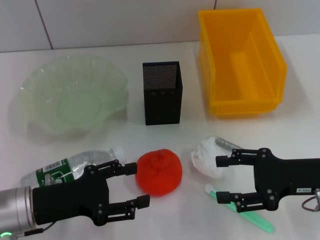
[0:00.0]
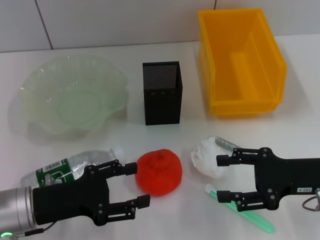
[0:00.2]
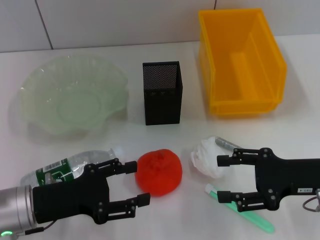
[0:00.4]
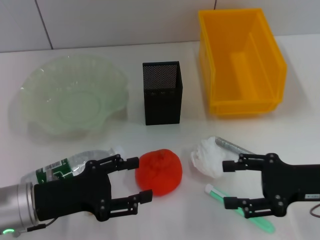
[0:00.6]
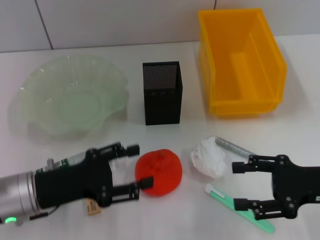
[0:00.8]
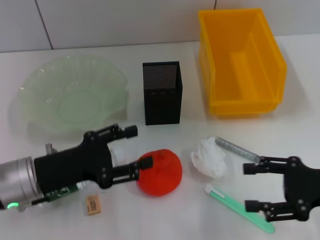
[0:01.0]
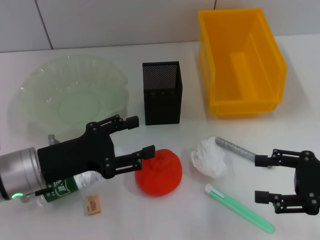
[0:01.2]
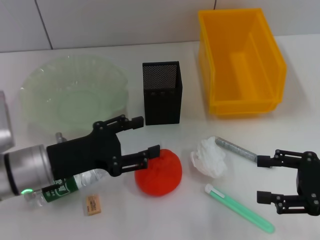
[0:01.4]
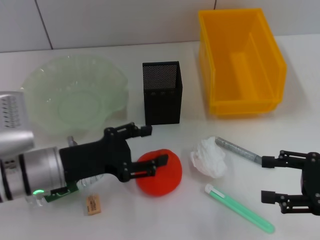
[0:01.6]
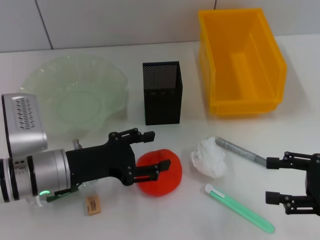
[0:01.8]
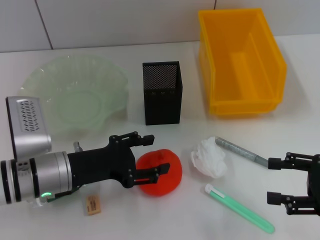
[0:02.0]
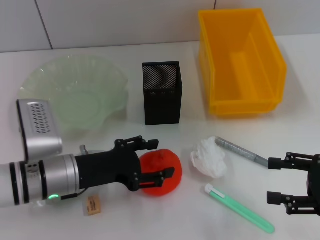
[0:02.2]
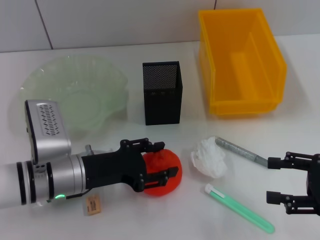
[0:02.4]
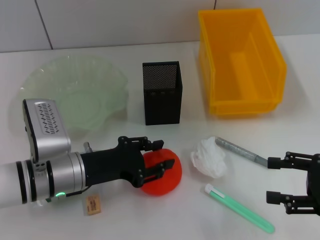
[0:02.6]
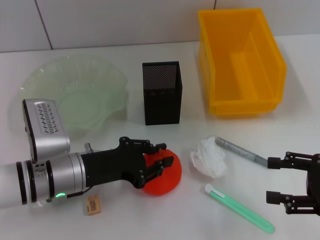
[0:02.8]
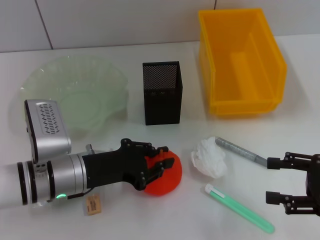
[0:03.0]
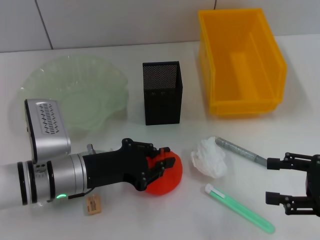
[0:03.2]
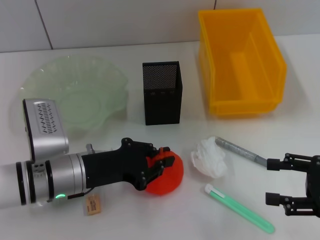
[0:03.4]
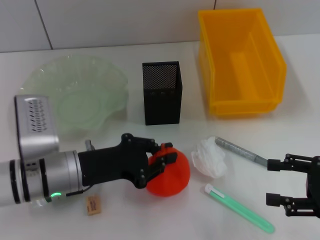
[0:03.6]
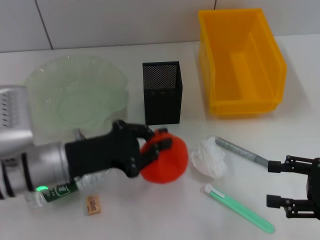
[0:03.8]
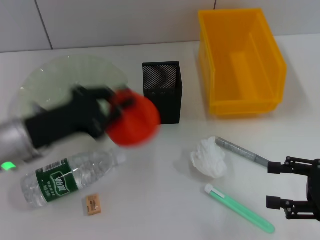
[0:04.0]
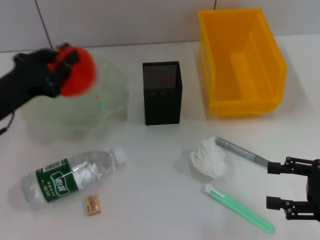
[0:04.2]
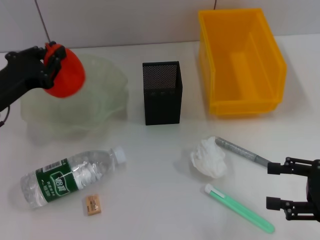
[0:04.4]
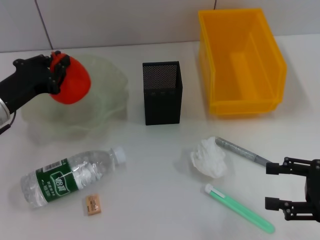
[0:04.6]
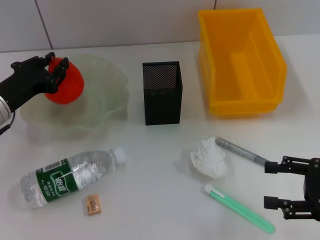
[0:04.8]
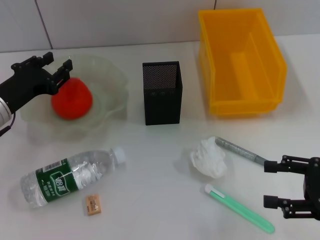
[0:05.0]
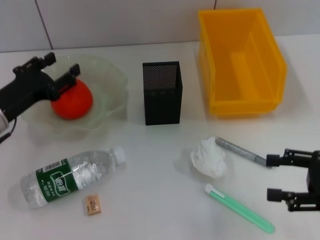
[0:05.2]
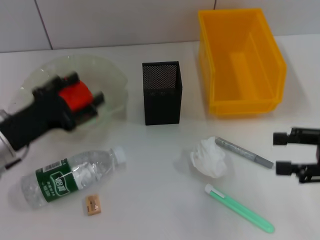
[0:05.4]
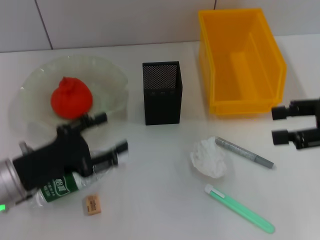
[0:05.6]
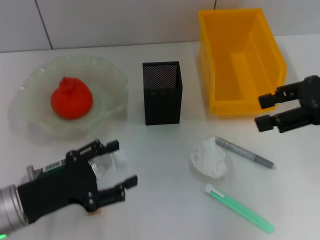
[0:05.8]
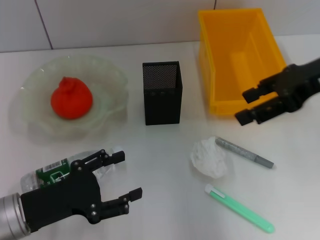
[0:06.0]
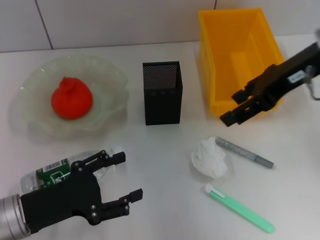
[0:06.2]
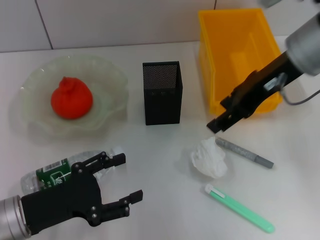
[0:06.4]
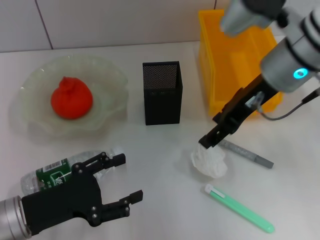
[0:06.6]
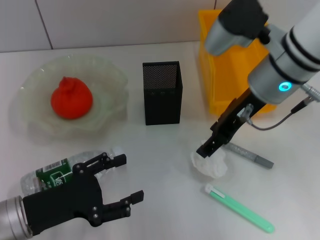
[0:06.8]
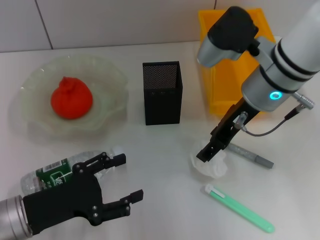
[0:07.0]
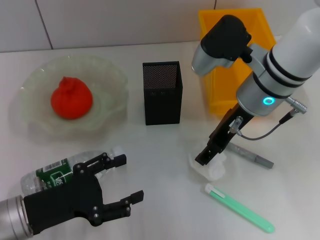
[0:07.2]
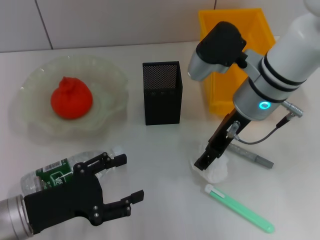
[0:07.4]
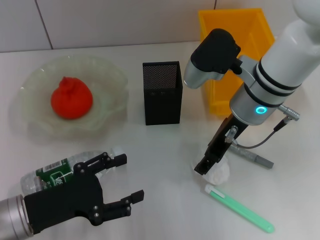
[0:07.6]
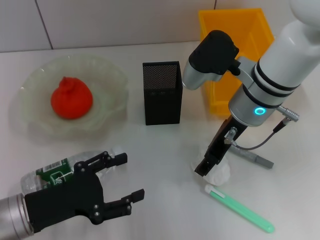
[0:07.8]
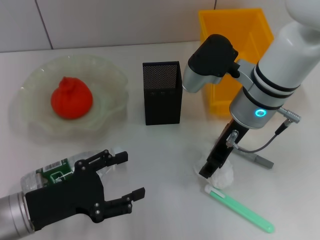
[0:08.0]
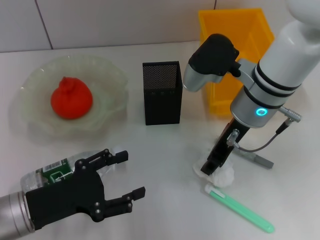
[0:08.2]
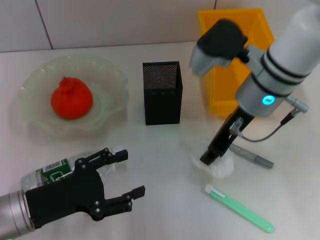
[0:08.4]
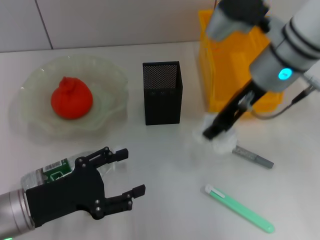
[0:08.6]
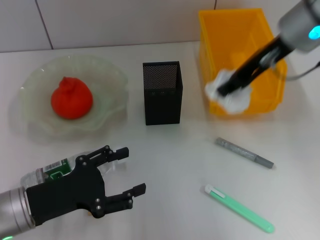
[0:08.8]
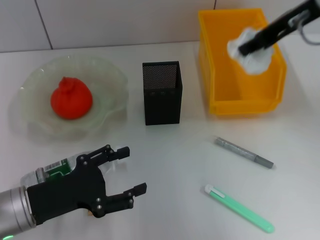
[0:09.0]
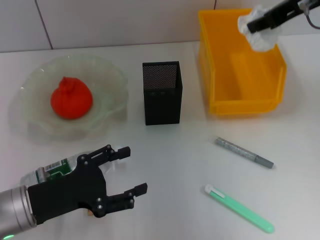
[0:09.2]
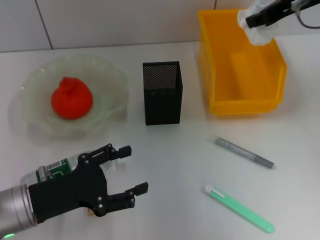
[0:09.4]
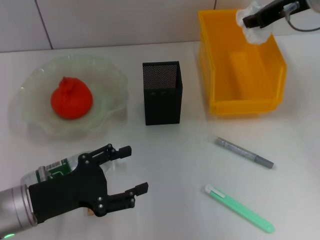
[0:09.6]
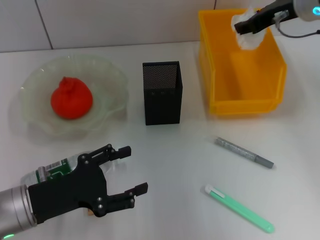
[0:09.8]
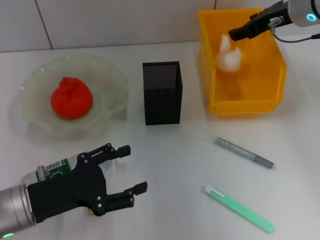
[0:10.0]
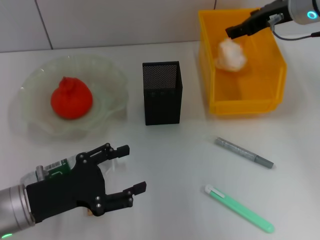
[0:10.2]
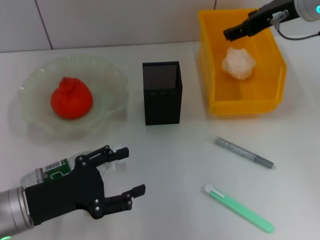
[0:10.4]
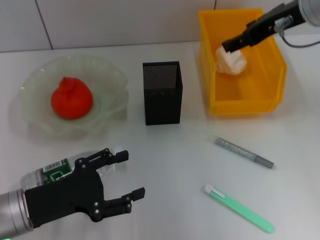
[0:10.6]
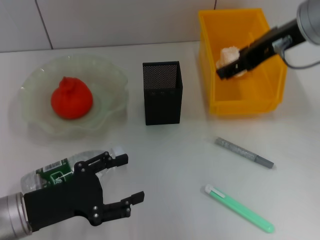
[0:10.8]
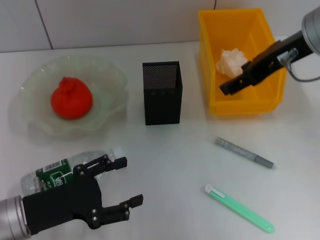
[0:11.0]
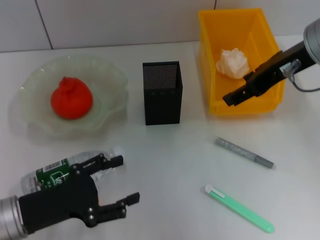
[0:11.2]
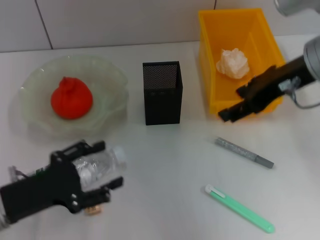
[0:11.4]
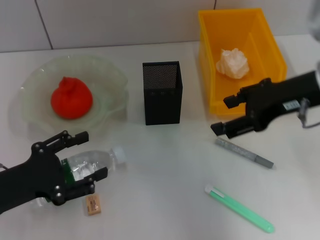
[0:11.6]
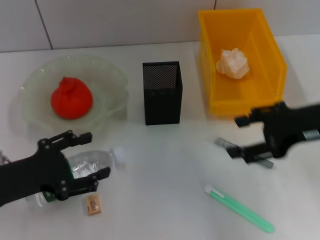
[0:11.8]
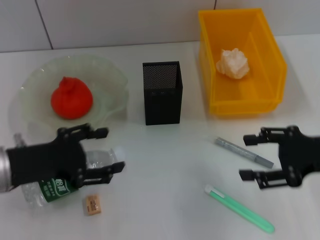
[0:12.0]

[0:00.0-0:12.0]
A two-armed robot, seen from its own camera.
Step, 0:00.0 to 0:03.0: Grab the orange with the left hand.
Step, 0:03.4 to 0:05.0: Place the orange into the fruit bowl with the left hand.
Step, 0:05.2 to 0:08.0: Grab the paper ball with the right hand.
Step, 0:08.2 to 0:10.0: Place the paper ball into the trash can with the right hand.
0:00.0 to 0:01.6: The right gripper goes roughly 5 cm to the right. The left gripper shifts by some 5 cm.
0:01.6 to 0:03.0: The left gripper closes its fingers.
0:03.0 to 0:04.4: The left gripper moves to the left and upward, roughly 10 cm.
0:04.4 to 0:06.0: The left gripper travels backward and downward by about 15 cm, and opens its fingers, while the right gripper goes approximately 25 cm upward, forward and to the left.
0:06.0 to 0:07.6: The right gripper travels to the left and downward by some 15 cm.
0:07.6 to 0:09.0: The right gripper is displaced upward and to the right by some 15 cm, and closes its fingers.
0:09.0 to 0:10.4: The right gripper opens up.
0:10.4 to 0:12.0: The right gripper goes some 20 cm backward, downward and to the right. The left gripper shifts about 5 cm upward.

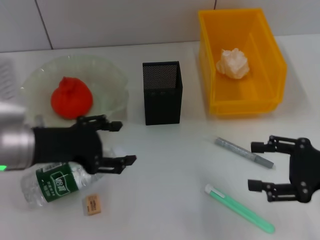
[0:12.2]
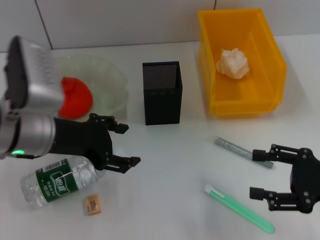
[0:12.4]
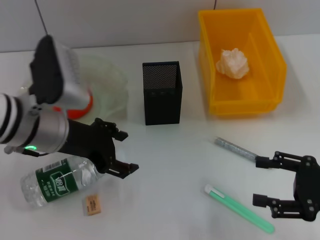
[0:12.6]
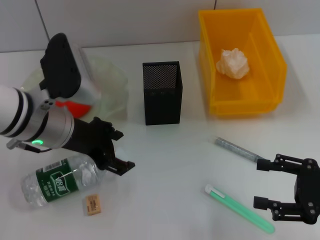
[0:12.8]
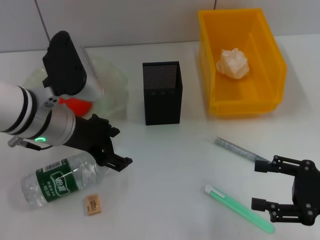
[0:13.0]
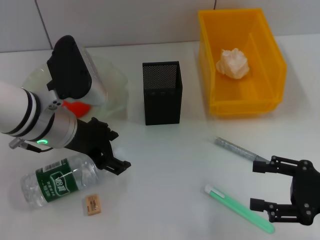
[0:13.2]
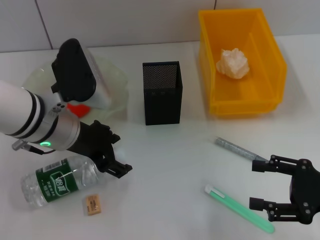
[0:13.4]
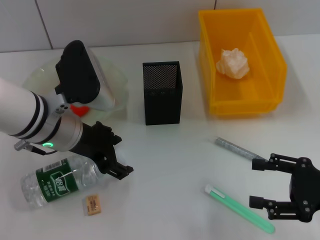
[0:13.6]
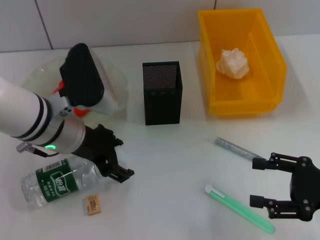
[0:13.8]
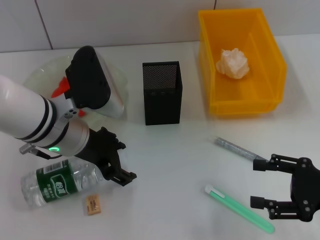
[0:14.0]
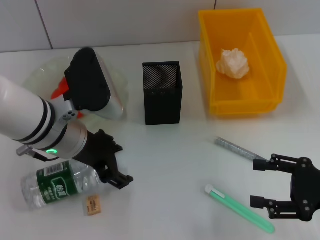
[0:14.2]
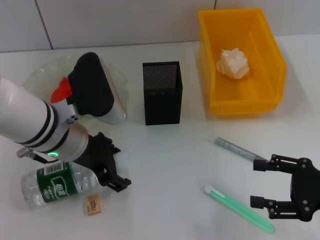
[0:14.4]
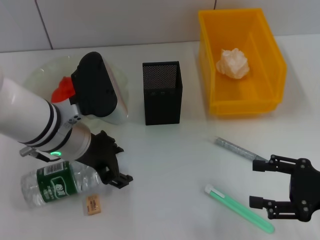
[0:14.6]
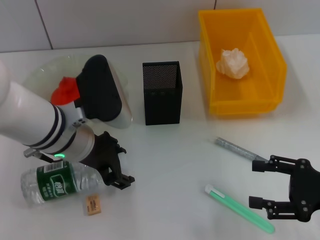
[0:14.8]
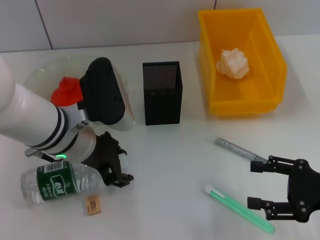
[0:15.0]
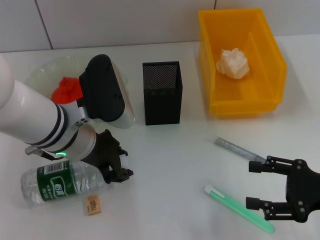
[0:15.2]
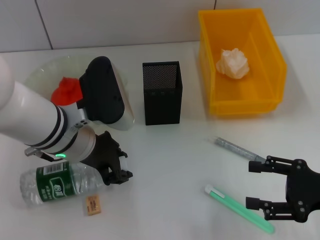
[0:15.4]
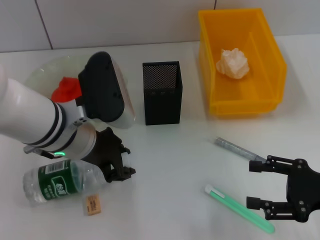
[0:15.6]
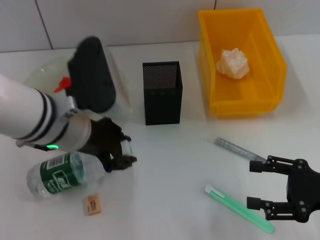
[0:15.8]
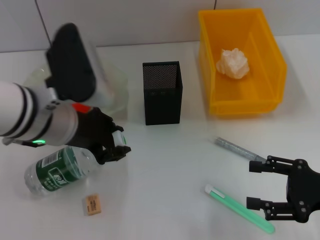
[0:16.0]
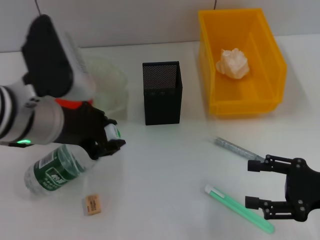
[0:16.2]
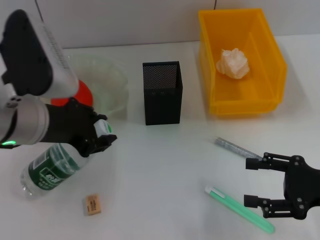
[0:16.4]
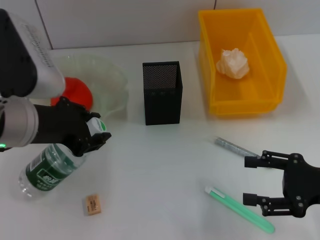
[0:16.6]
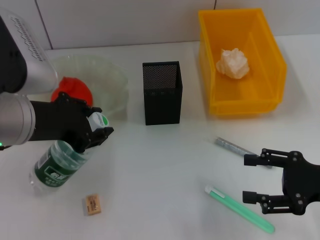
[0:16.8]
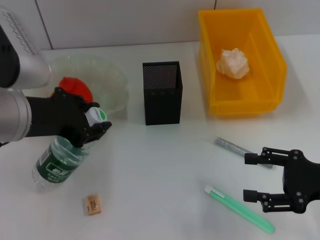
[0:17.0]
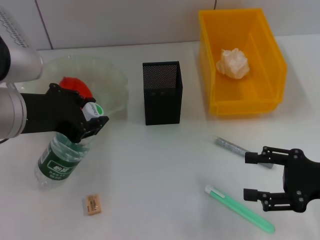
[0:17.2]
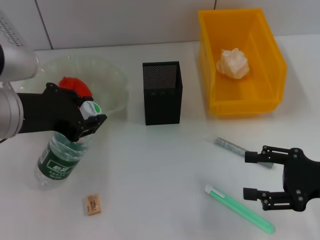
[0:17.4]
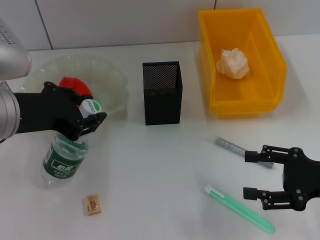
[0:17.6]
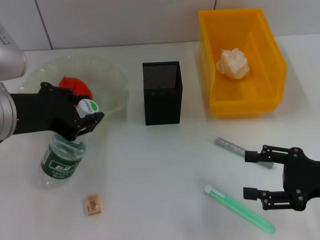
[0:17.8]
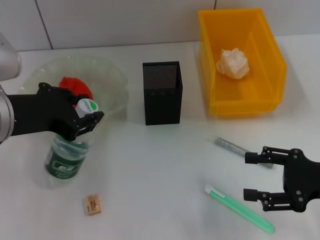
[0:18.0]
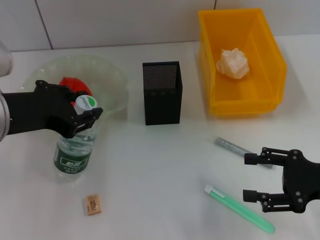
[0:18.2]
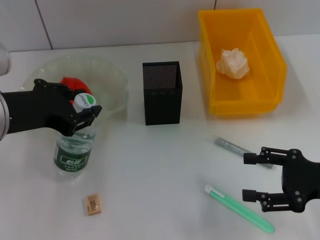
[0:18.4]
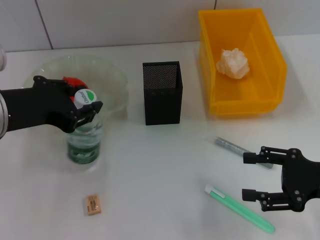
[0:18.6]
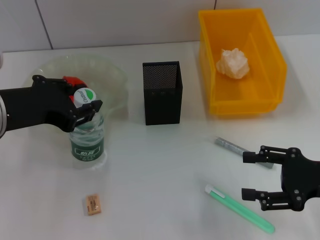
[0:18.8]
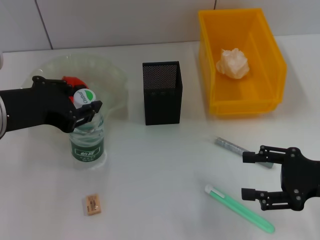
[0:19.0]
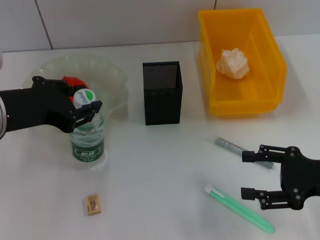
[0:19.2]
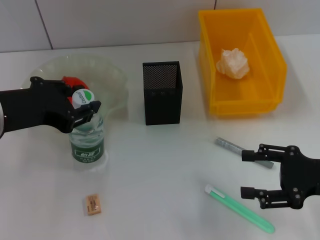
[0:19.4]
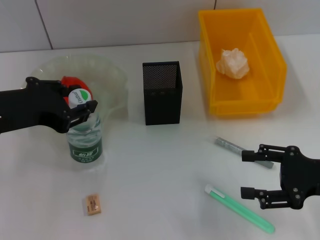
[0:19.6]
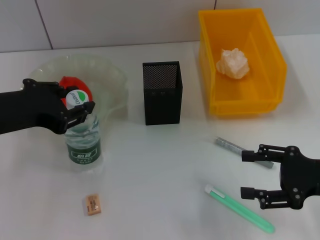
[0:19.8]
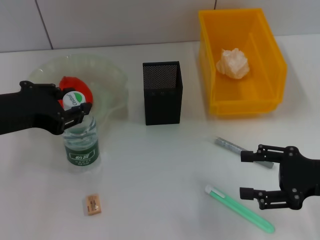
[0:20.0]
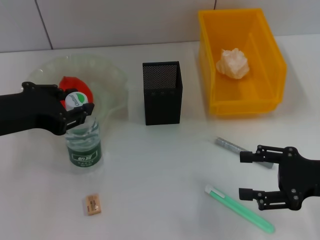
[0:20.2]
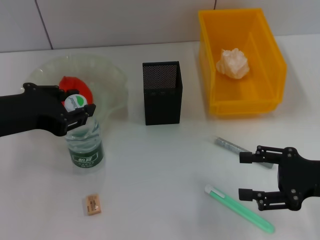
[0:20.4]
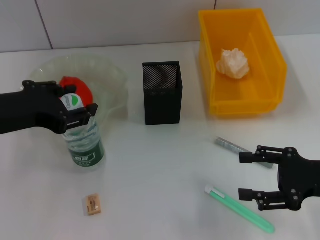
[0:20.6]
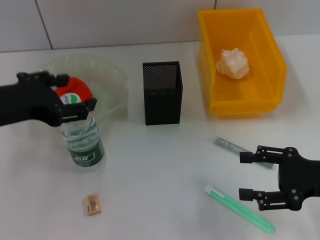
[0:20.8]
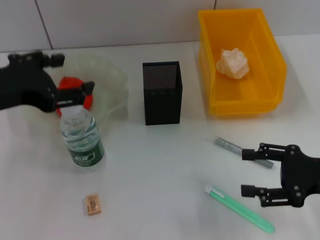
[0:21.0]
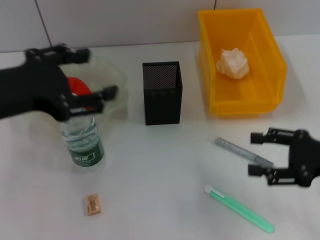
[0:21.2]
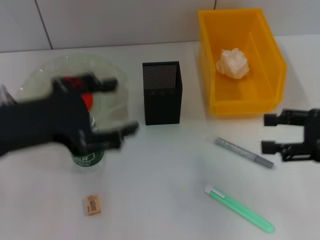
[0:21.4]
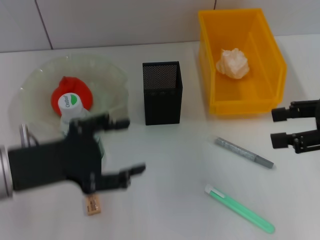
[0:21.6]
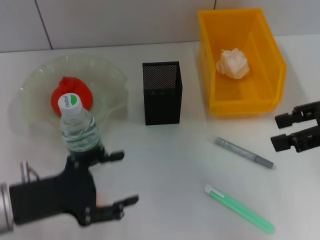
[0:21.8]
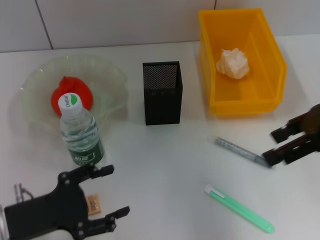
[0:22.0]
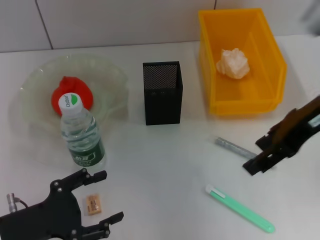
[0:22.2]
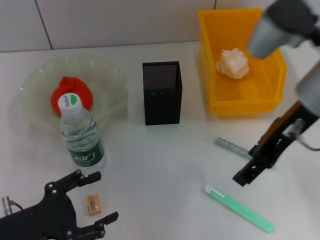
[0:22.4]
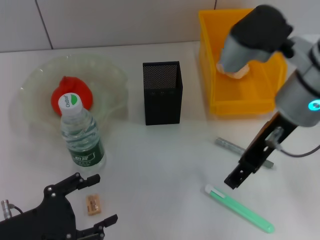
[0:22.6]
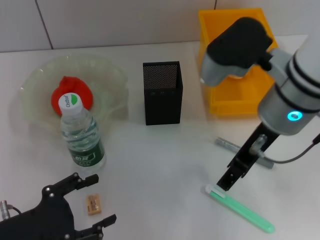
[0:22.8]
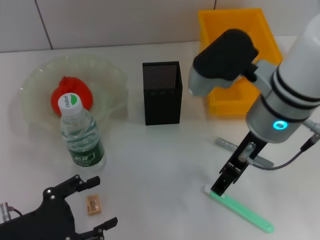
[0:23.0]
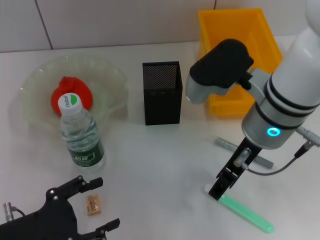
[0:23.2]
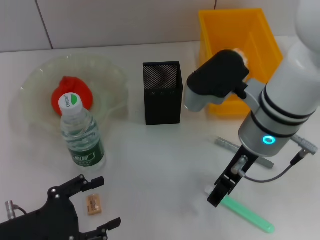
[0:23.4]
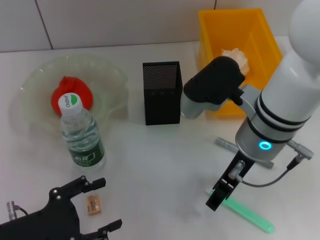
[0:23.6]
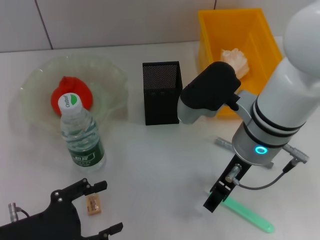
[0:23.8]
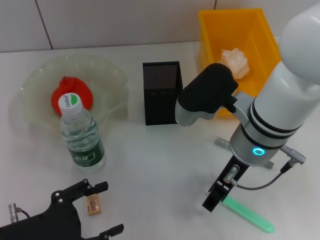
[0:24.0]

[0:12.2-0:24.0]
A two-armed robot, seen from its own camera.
Step, 0:12.2 to 0:15.2: Grab the water bottle with the left hand.
Step, 0:15.4 to 0:20.8: Place the water bottle on the table with the left hand.
0:12.2 to 0:13.6: The left gripper is displaced to the right by approximately 5 cm.
0:13.6 to 0:15.2: The grippers make only small movements.
0:15.2 to 0:16.6: The left gripper travels upward and to the left by roughly 10 cm.
0:16.6 to 0:18.2: The grippers stay close to where they were, moving slightly.
0:18.2 to 0:21.0: The grippers stay close to where they were, moving slightly.
0:21.0 to 0:22.6: The right gripper travels to the left, upward and forward by about 20 cm; the left gripper shifts some 20 cm downward and backward.
0:22.6 to 0:24.0: The right gripper goes roughly 5 cm downward.
